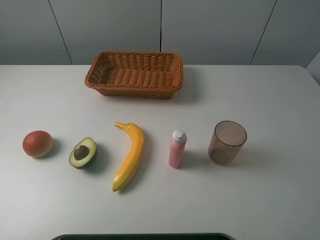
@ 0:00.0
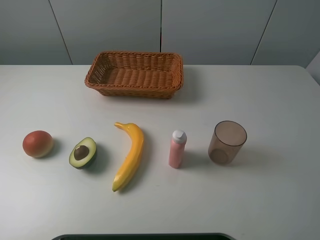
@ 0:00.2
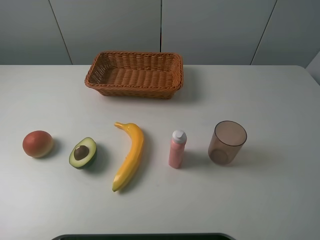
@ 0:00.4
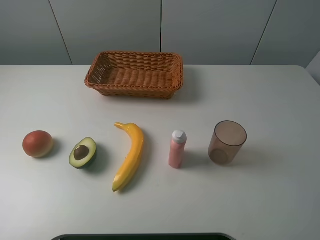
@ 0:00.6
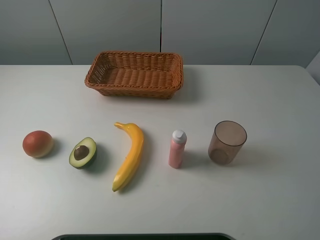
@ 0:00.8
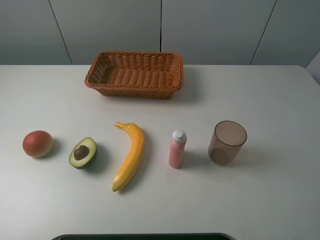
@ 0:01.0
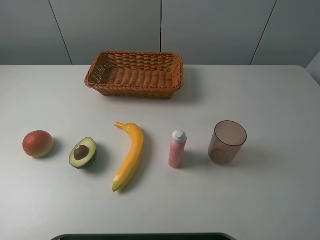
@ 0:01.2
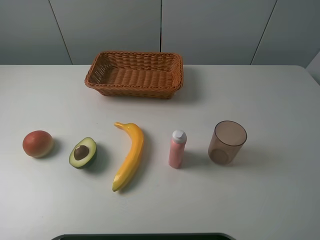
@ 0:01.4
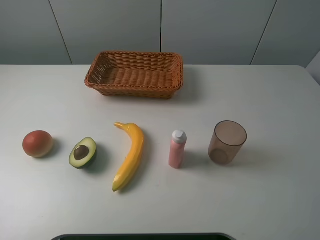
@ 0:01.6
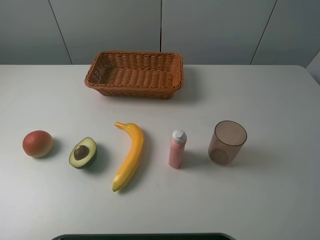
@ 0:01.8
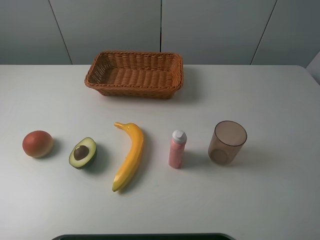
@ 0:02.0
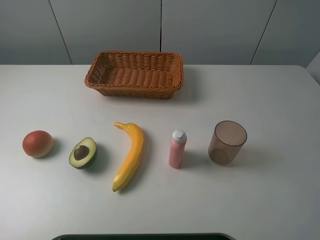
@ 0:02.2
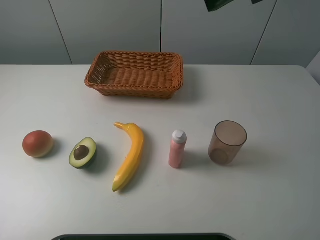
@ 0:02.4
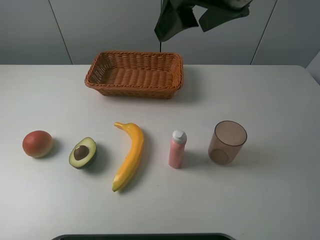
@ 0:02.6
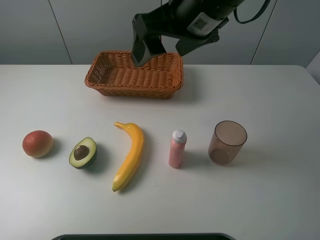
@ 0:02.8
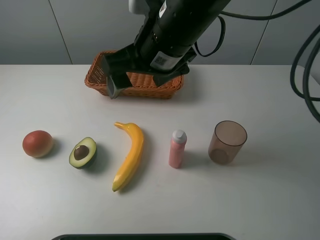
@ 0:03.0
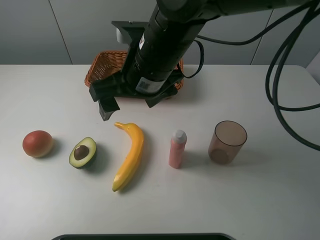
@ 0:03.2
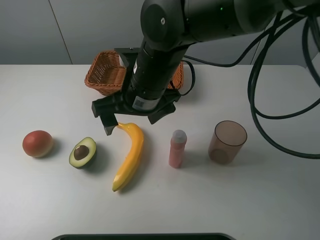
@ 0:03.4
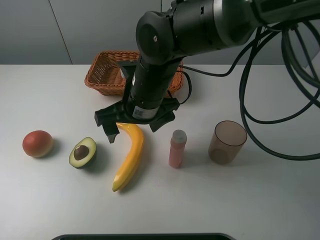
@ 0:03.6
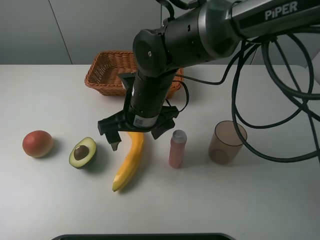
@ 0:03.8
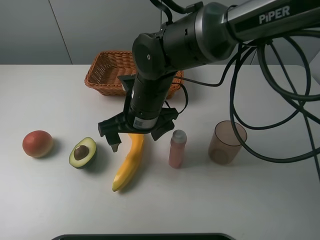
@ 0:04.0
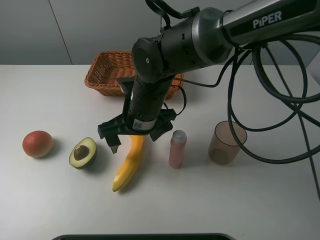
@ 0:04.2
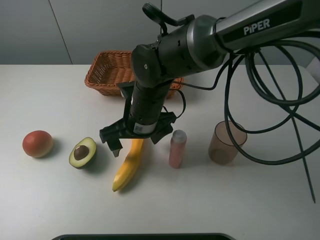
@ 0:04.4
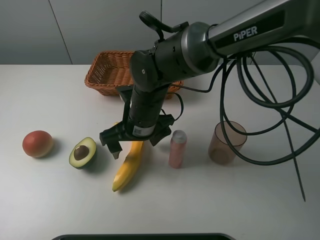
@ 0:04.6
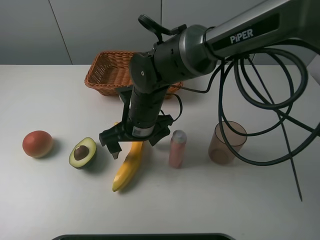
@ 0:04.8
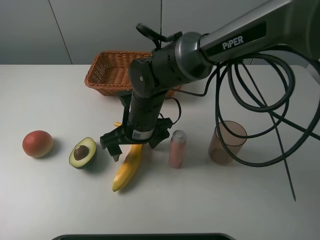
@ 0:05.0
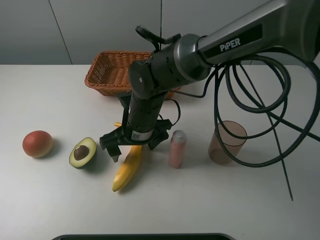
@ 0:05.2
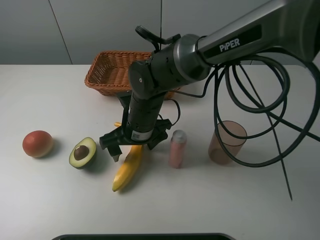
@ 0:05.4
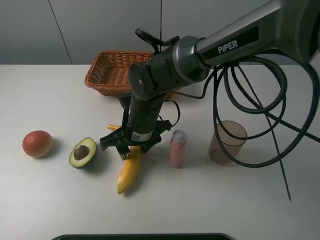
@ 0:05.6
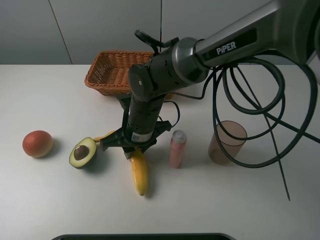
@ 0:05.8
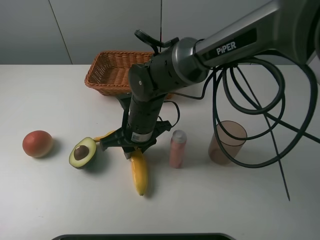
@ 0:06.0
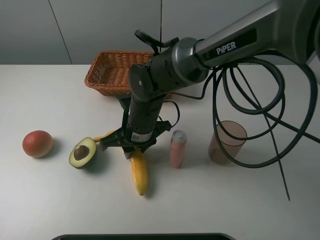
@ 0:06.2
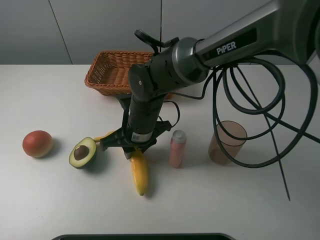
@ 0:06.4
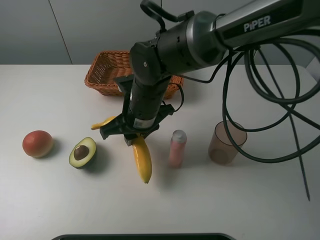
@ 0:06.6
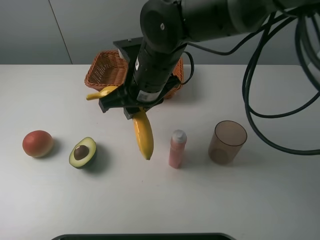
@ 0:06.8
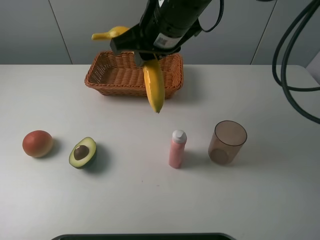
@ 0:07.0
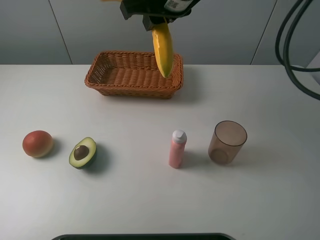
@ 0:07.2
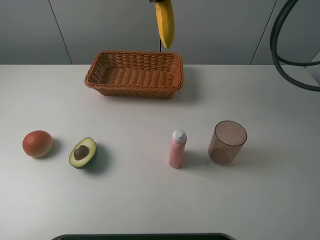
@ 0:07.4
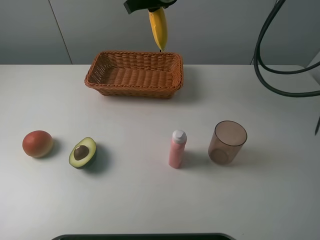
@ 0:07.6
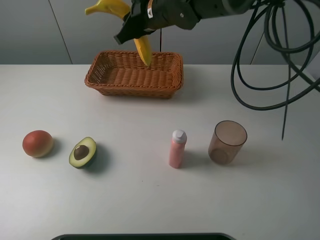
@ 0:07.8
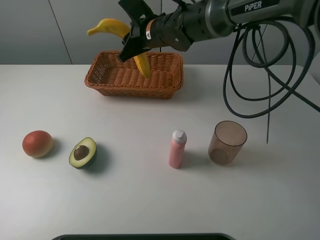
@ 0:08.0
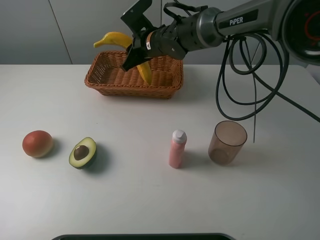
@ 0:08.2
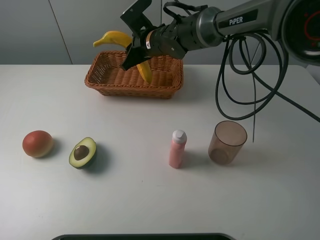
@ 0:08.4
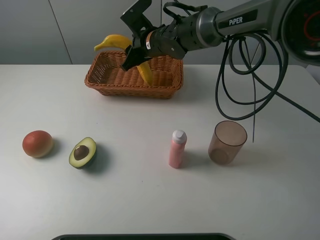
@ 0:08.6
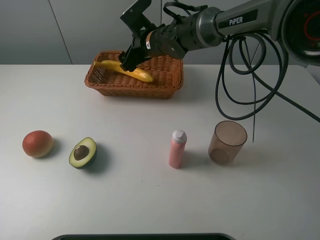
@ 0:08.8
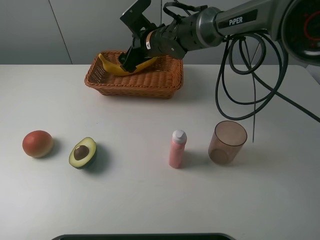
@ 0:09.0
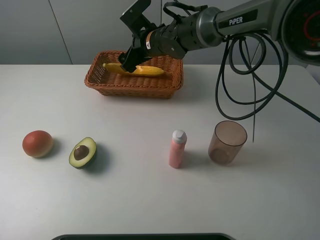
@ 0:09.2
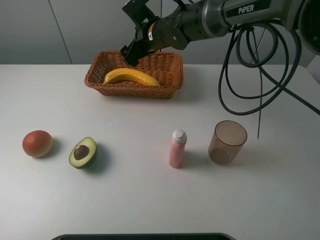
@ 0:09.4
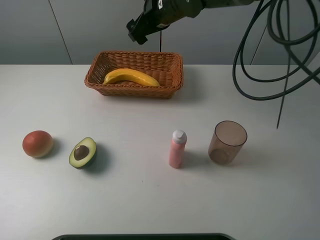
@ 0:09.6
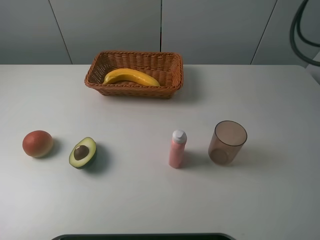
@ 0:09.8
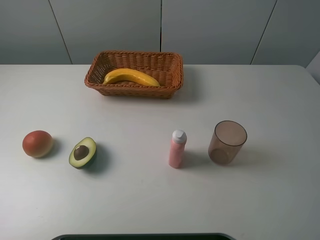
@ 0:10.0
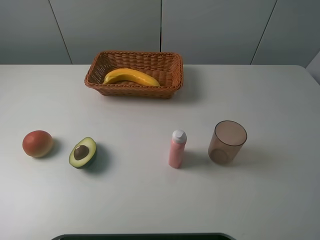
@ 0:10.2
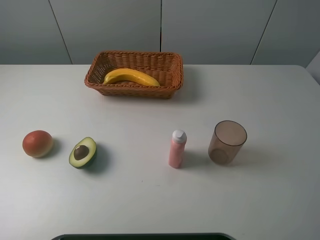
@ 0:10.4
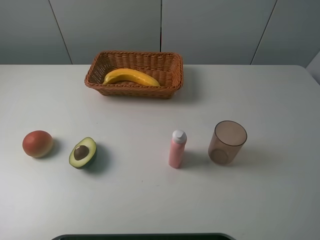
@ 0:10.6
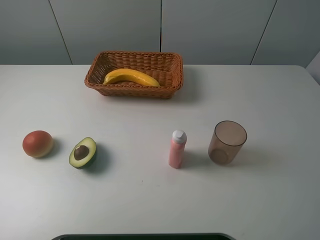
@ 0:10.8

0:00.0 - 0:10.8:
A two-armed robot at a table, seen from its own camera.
Task of the whole recording: randomly pick up an item from the table and put it in the basket.
Step, 0:00.0 - 0:06.0: Grasp the banana with the right gripper.
Step, 0:06.2 - 0:09.6: Place the banana into the basket with the right gripper.
0:01.6 - 0:03.0: The right gripper heads to the left, forward and downward, covering about 35 cm.
0:03.0 - 0:04.6: The right gripper goes approximately 15 cm downward.
0:04.6 - 0:06.2: The right gripper closes its fingers.
0:06.2 - 0:07.8: The right gripper moves forward and upward, some 20 cm.
0:07.8 - 0:09.2: The right gripper is displaced downward by about 5 cm, and opens up.
0:09.2 - 0:10.8: The right gripper shifts roughly 50 cm upward, backward and to the right.

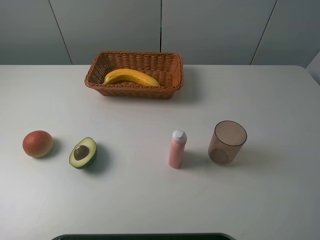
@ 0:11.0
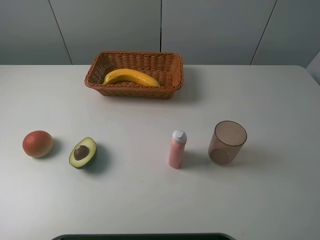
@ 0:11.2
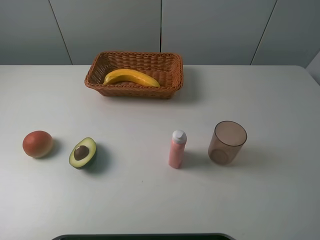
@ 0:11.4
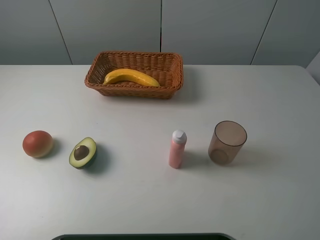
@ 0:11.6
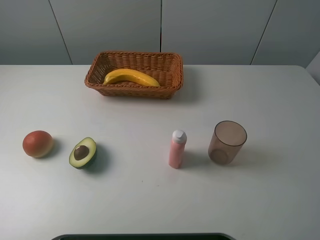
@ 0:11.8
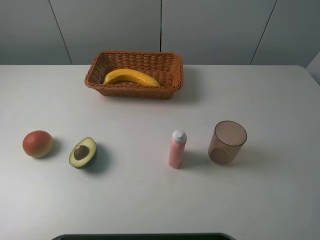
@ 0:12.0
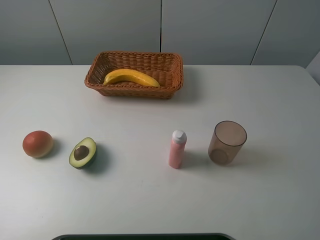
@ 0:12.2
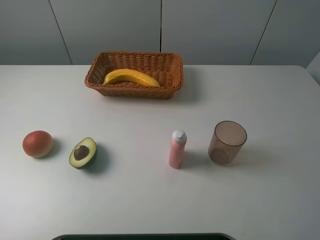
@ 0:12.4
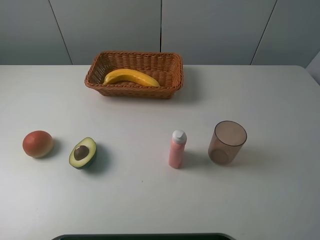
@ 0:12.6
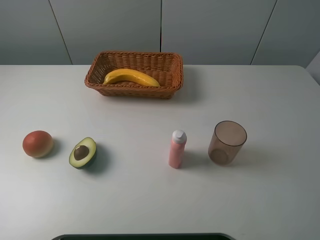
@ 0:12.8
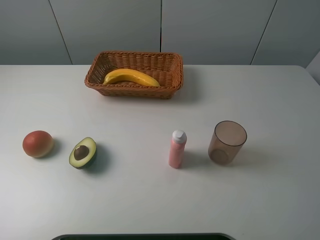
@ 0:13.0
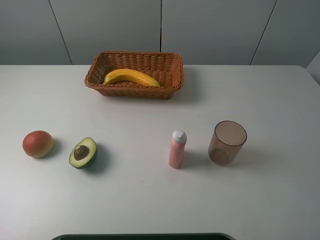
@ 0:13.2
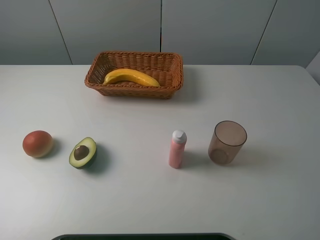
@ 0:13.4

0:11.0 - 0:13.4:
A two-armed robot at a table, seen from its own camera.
Task of the whole recording: randomly pick up an item from the table and put it in the basket.
0:12.2 - 0:13.4: Neither gripper changes place.

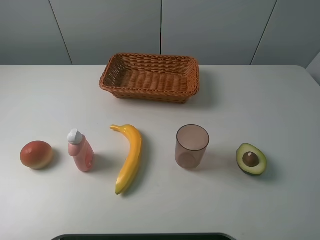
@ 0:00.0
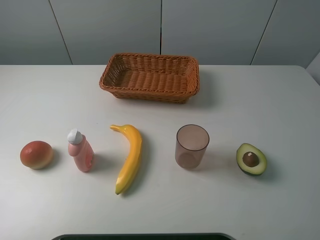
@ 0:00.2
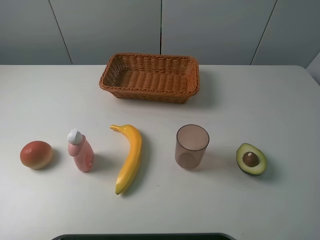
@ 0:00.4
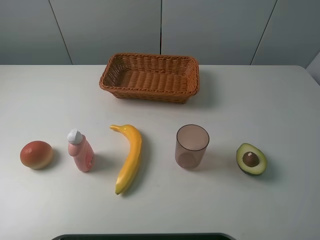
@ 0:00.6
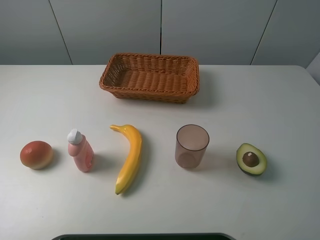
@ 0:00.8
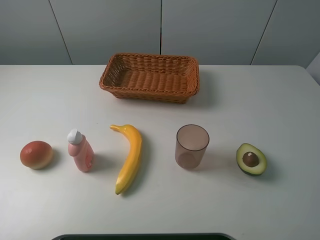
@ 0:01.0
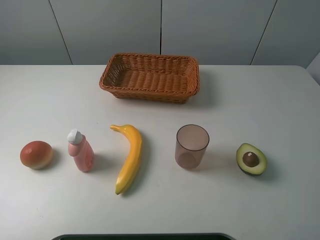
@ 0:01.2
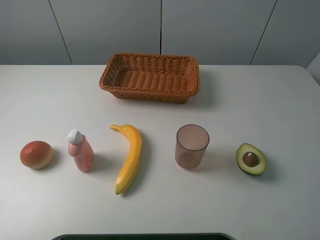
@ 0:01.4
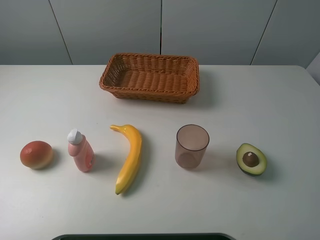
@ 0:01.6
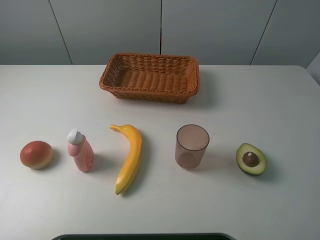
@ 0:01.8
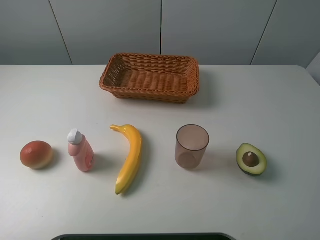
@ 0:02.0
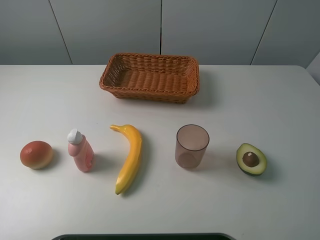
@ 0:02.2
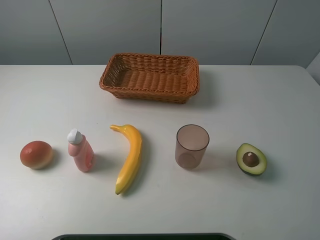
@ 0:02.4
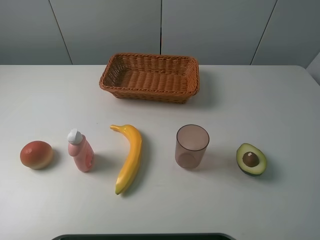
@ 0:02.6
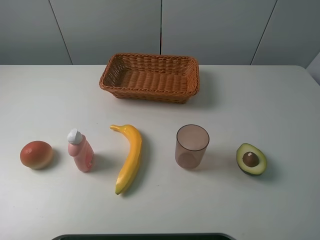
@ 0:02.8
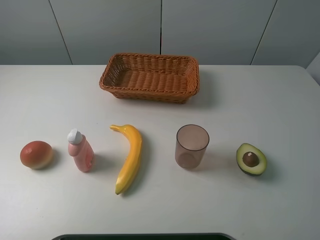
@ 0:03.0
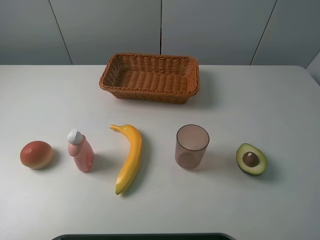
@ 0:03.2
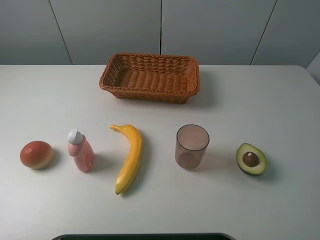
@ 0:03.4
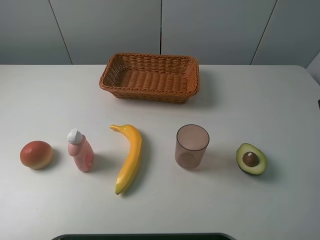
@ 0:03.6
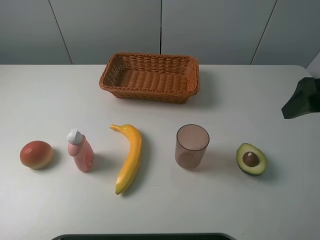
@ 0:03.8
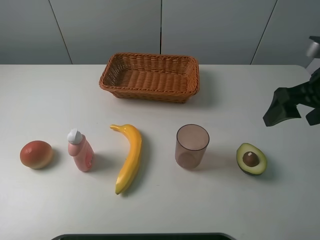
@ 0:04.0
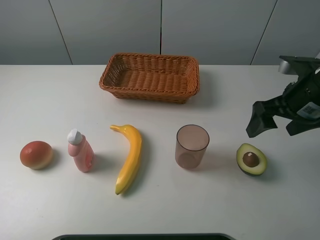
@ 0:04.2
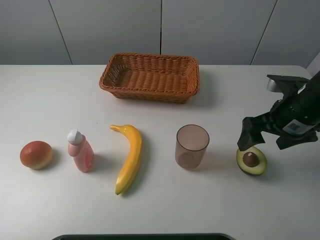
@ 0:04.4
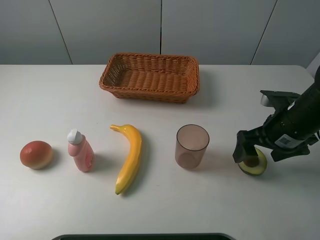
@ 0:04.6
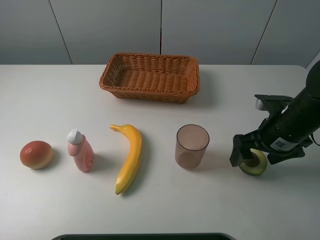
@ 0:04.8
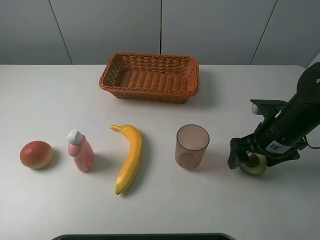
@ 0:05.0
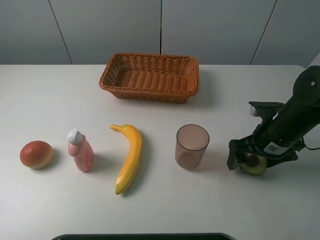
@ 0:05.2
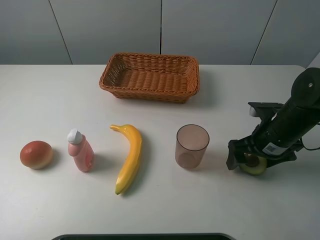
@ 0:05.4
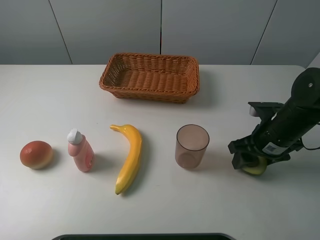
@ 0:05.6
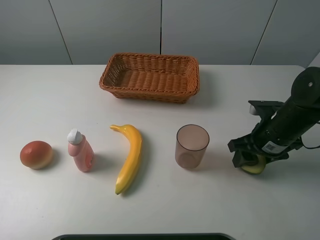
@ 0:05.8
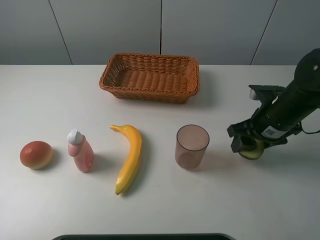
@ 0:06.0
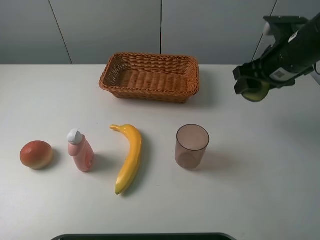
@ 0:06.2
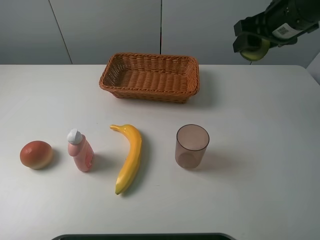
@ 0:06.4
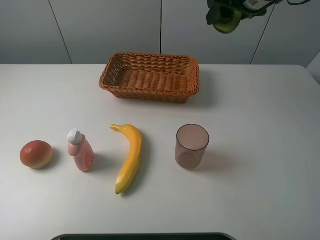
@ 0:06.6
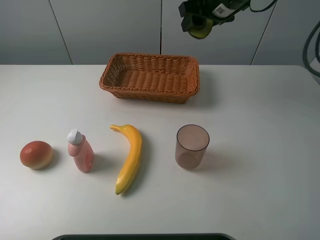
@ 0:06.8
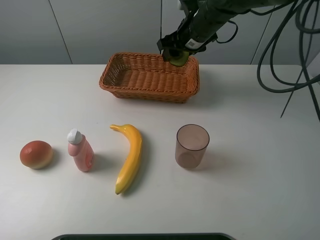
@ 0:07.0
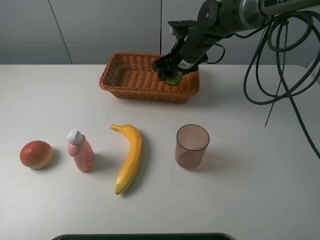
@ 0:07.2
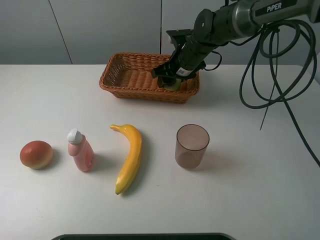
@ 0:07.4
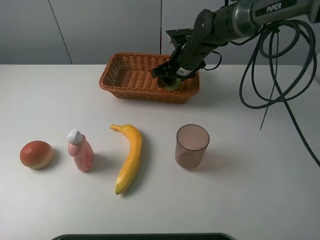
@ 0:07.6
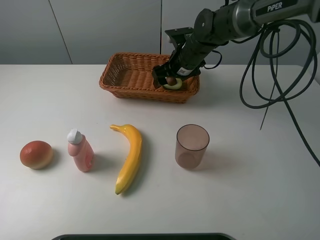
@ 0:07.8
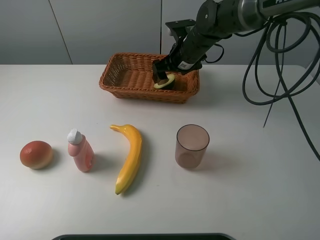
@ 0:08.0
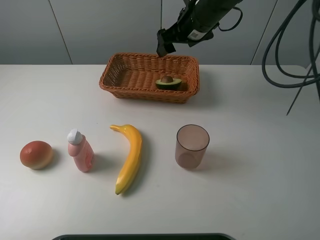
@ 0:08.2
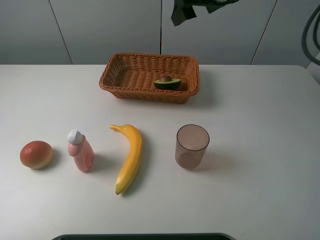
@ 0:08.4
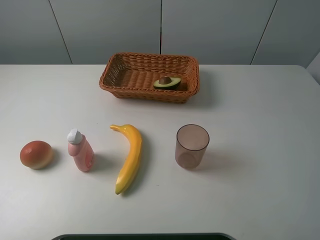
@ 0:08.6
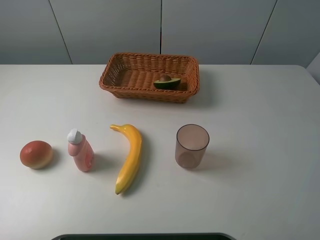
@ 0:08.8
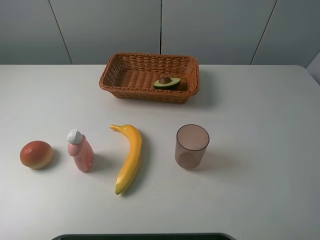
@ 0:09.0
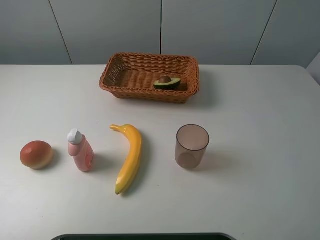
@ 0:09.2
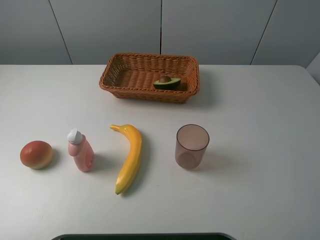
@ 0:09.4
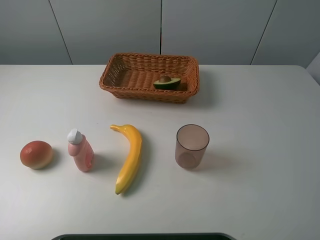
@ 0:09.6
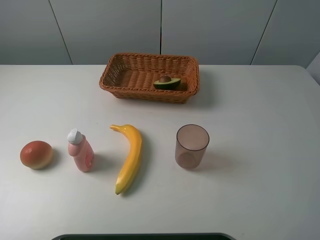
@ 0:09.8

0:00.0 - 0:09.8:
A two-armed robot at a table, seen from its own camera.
Task of the whole recording: randomly pick up an item from the table and put it in the basket.
Step, 0:00.0 - 0:06.0: Grasp the avocado with the right gripper.
Step, 0:06.2 - 0:08.4: Place the avocado into the basket with the right gripper.
0:00.0 - 0:02.8: The two grippers keep their place.
0:02.8 - 0:04.2: The right gripper goes some 25 cm forward.
0:04.2 - 0:05.6: The right gripper shifts about 10 cm downward, and closes its fingers.
0:05.6 - 0:07.0: The right gripper travels forward, to the left and upward by roughly 25 cm.
0:07.0 - 0:08.4: The right gripper heads upward, covering about 15 cm, and opens.
0:08.4 - 0:09.8: The right gripper travels backward and to the right by approximately 40 cm.
